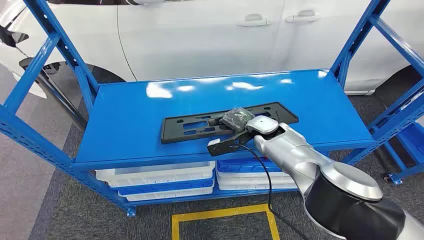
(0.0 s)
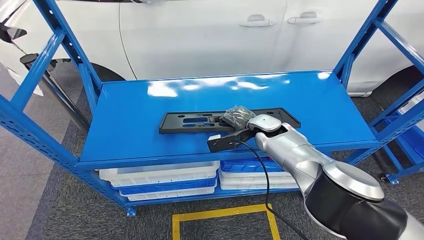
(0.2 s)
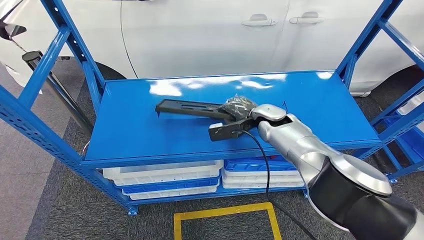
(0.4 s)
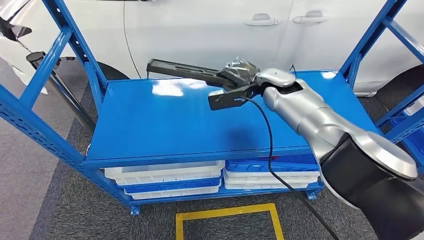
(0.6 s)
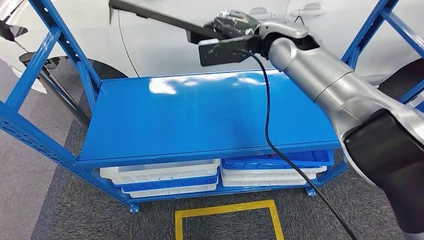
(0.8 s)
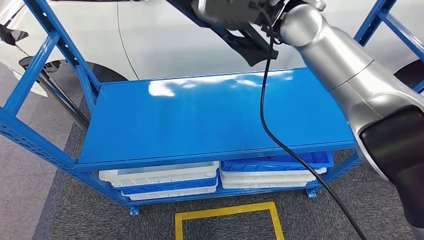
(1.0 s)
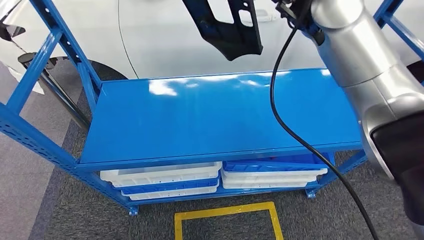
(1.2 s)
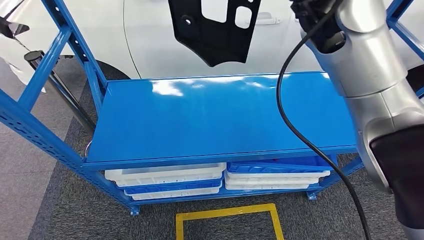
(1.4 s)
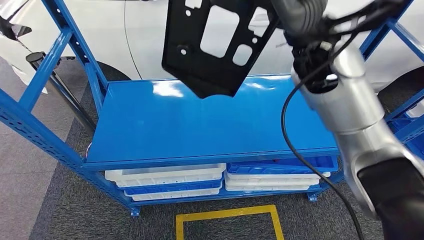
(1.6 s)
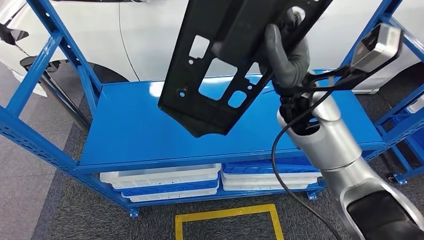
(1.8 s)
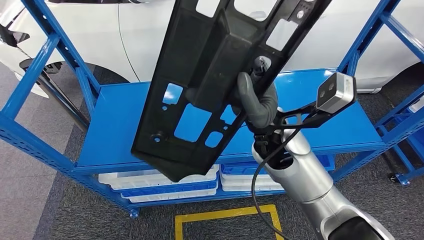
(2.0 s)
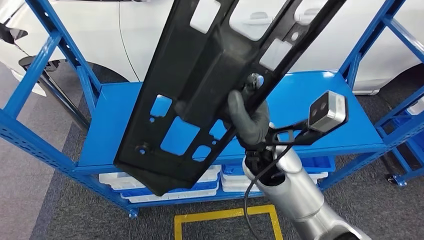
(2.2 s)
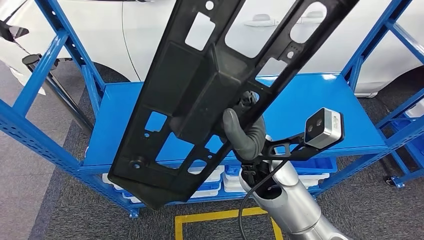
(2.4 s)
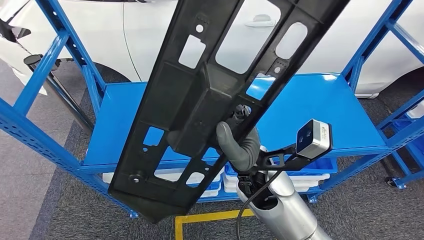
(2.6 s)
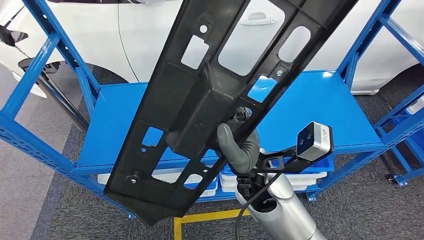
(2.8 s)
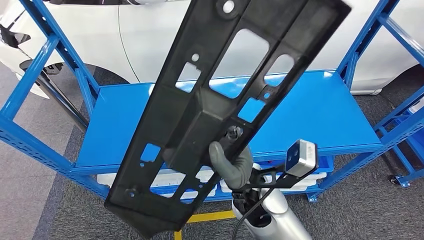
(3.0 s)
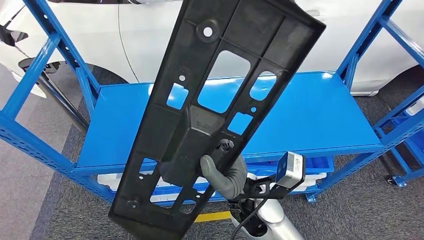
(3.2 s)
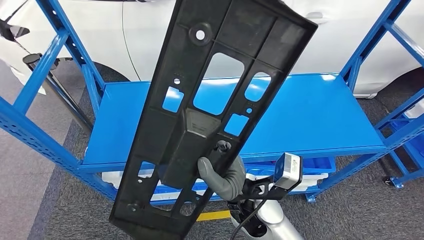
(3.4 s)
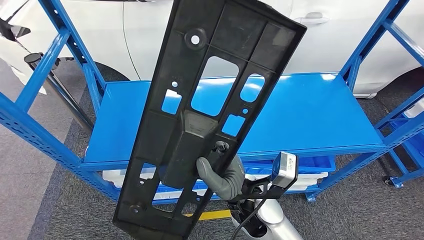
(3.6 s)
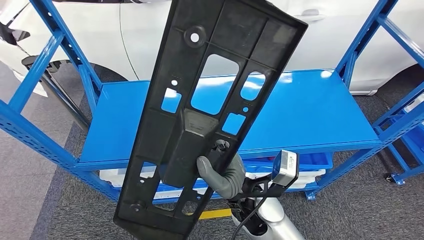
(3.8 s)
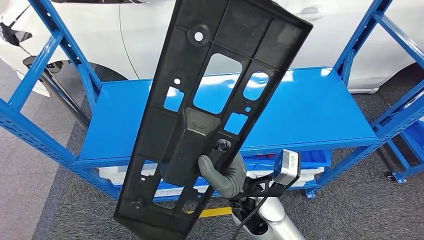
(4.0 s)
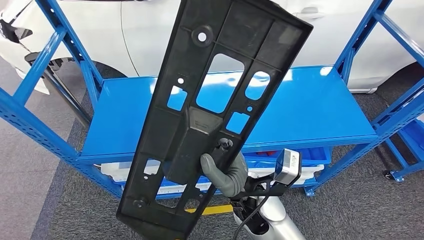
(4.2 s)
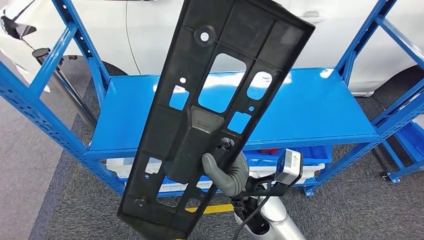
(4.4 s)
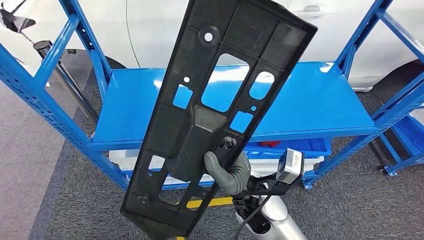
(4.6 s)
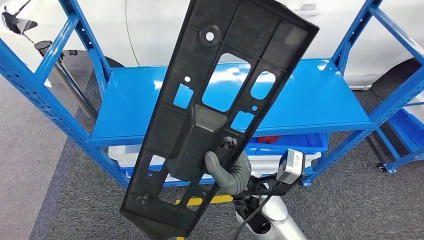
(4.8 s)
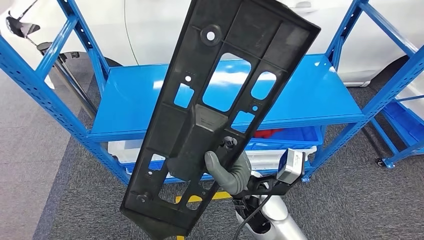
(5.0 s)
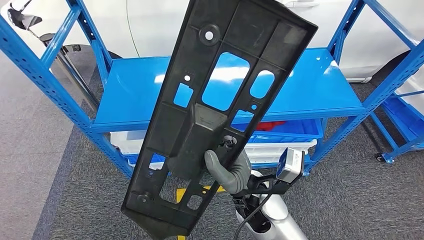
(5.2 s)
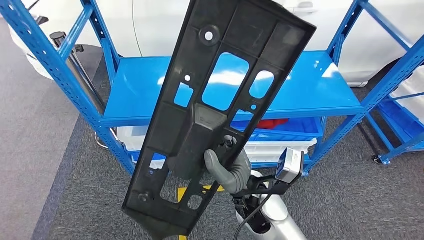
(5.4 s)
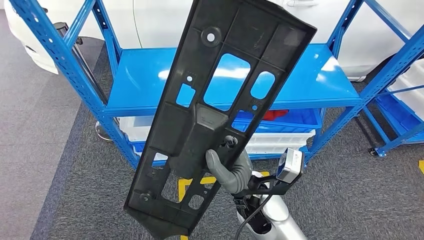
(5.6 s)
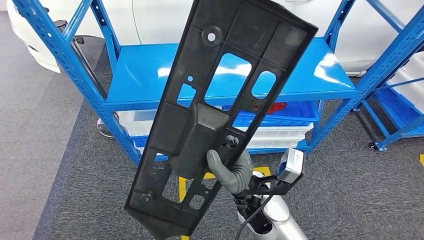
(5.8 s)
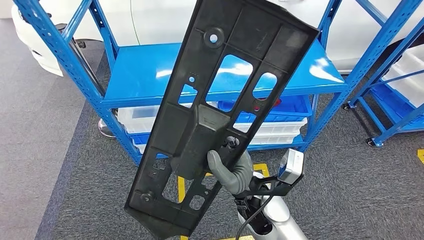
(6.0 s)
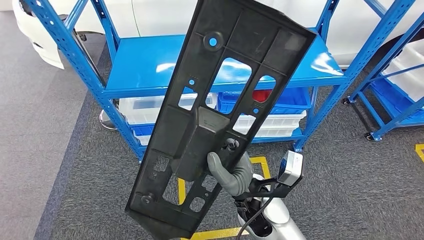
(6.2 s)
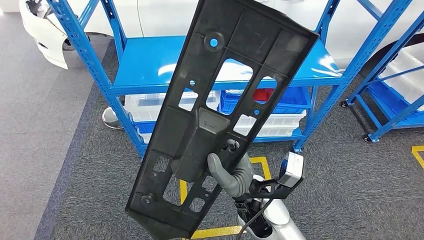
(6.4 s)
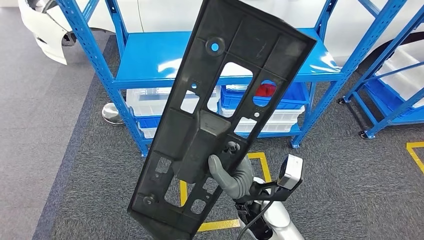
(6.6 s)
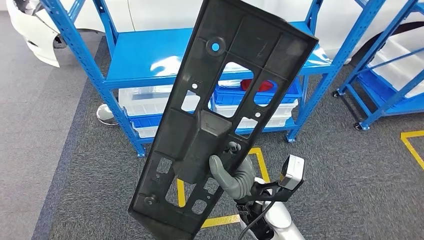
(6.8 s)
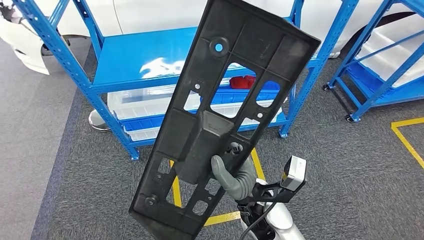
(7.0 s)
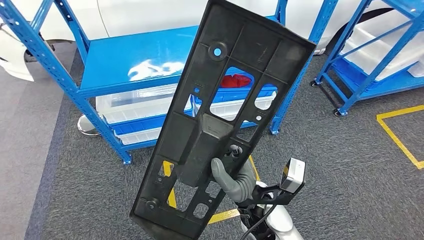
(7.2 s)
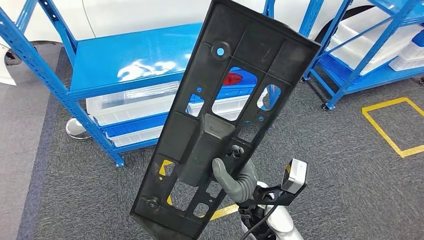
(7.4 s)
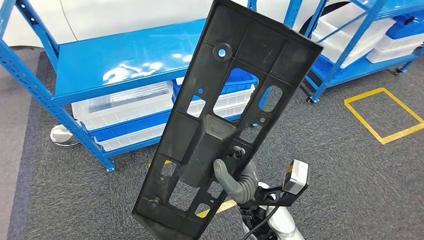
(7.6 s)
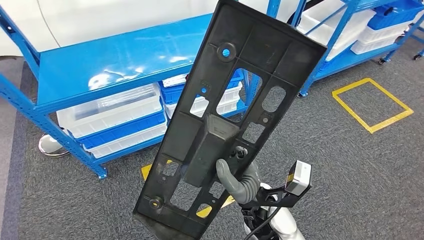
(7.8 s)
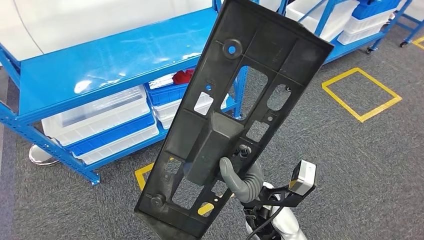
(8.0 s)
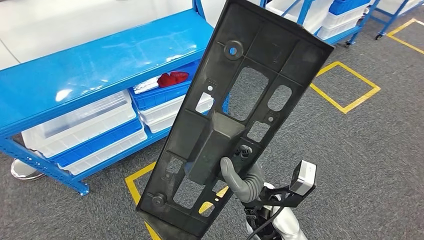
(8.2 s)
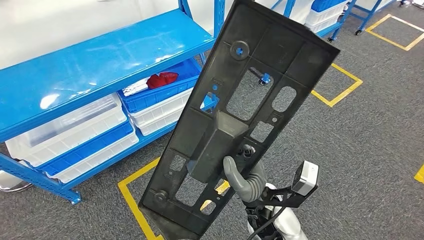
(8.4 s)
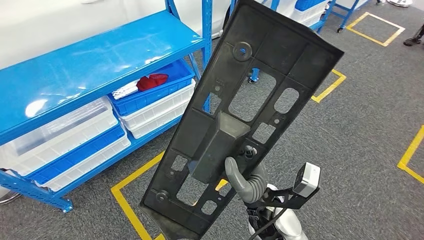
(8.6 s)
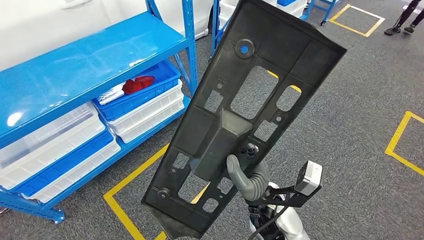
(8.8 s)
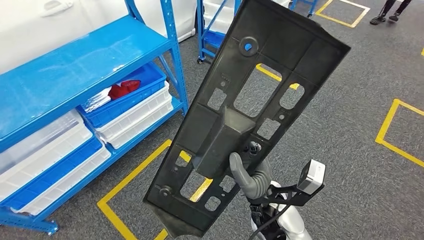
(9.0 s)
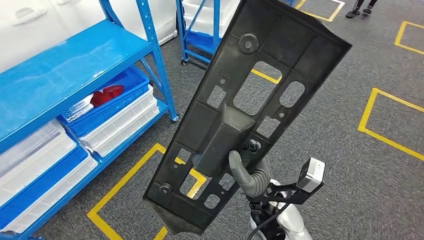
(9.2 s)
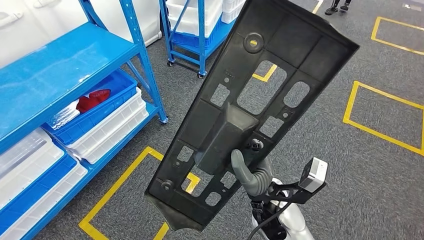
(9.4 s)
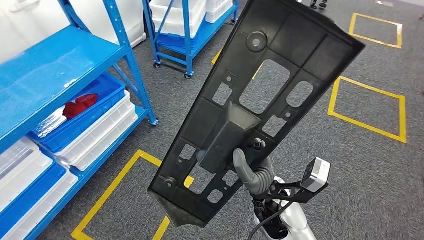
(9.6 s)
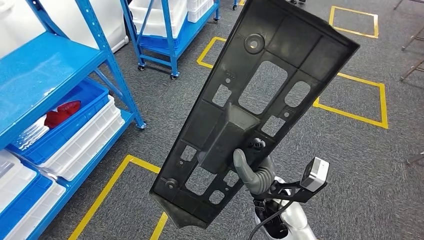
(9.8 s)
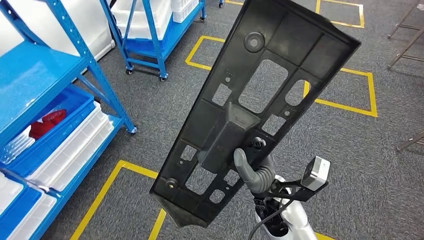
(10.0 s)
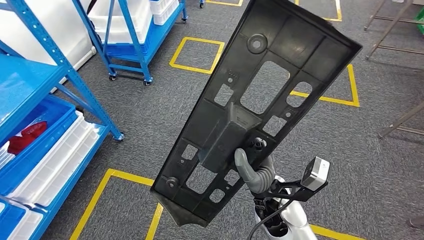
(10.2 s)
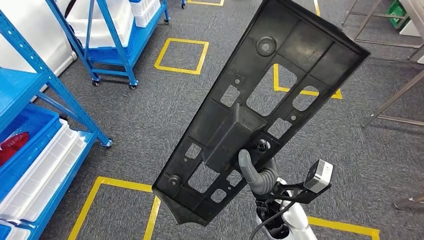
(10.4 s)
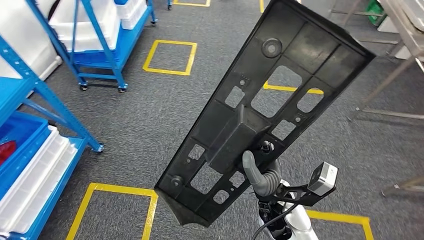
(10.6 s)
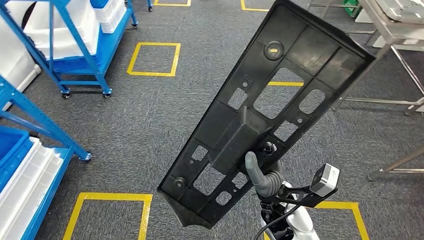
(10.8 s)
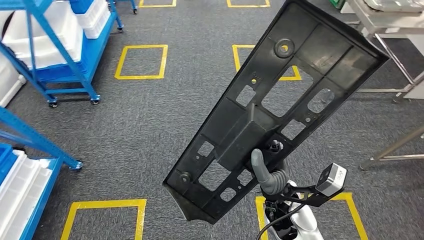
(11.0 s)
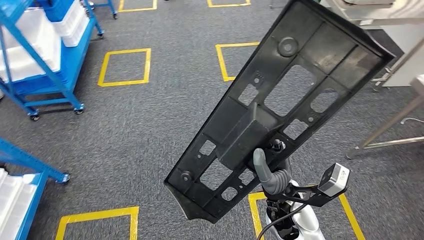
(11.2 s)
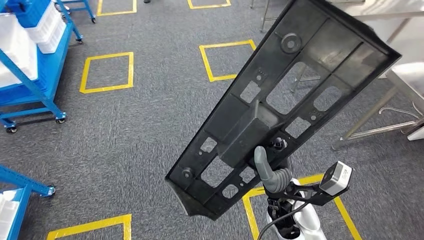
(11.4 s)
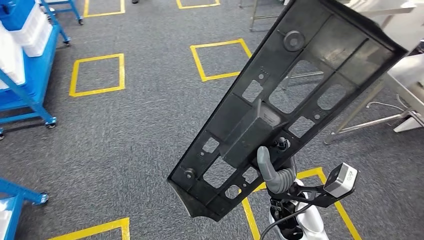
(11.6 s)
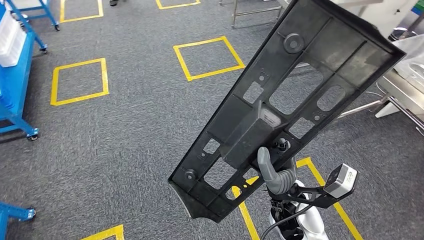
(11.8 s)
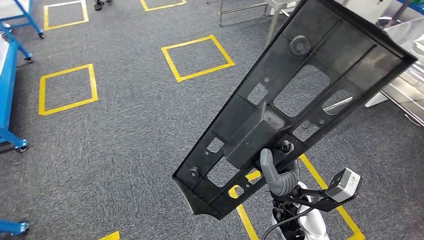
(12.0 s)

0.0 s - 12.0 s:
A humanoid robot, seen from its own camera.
Step, 0.0 s - 0.8 s: Pick up the large material from the shelf.

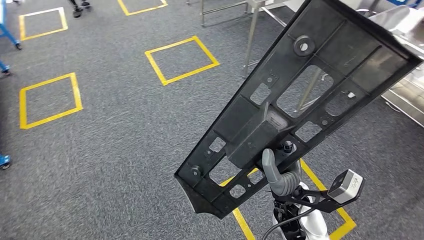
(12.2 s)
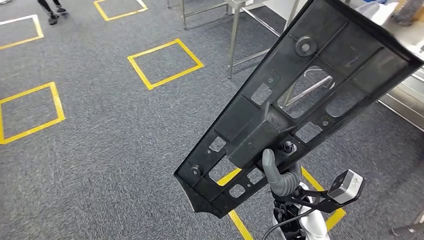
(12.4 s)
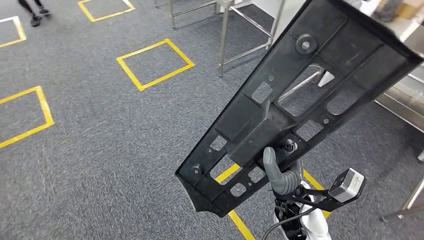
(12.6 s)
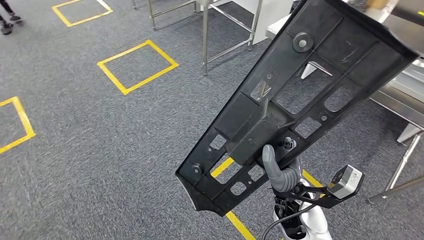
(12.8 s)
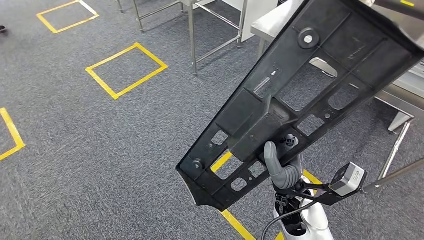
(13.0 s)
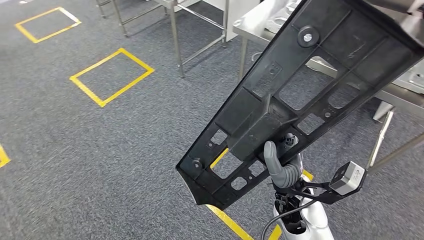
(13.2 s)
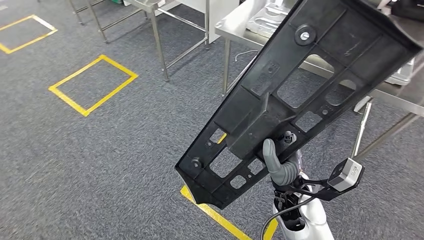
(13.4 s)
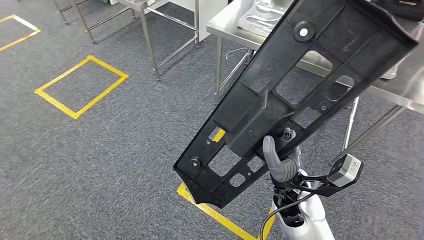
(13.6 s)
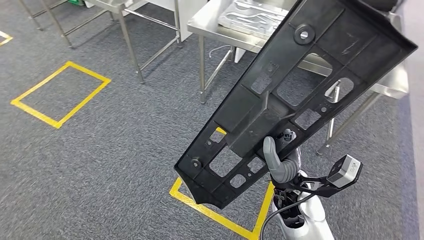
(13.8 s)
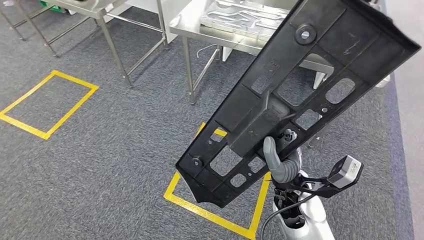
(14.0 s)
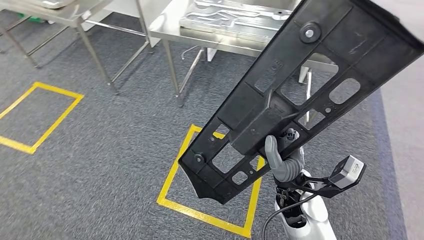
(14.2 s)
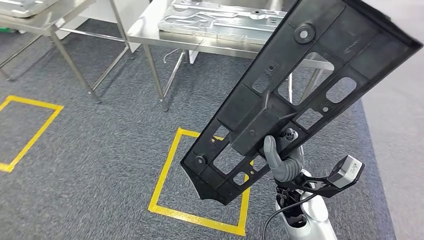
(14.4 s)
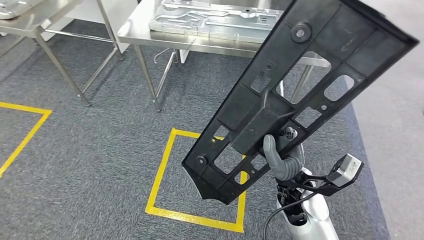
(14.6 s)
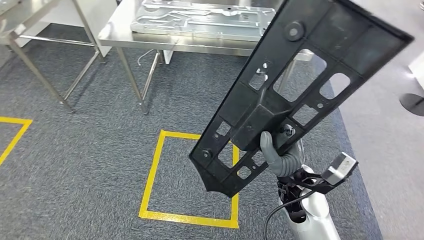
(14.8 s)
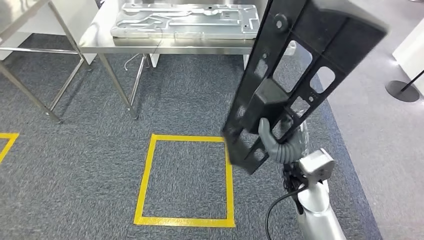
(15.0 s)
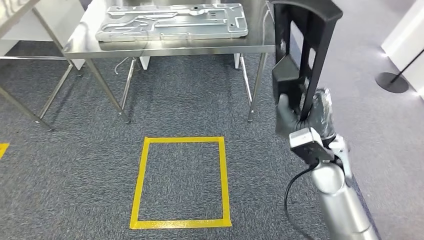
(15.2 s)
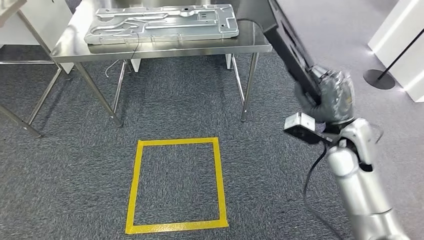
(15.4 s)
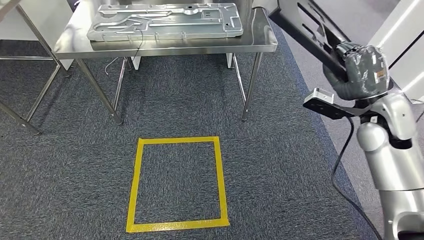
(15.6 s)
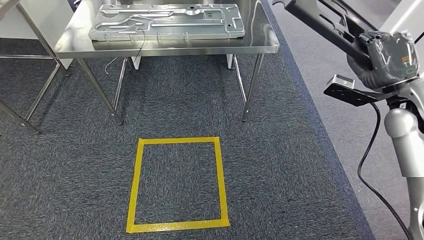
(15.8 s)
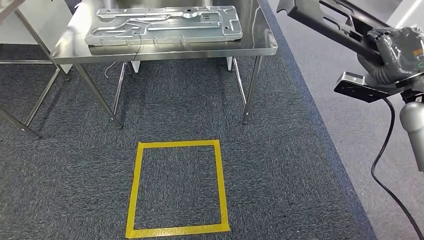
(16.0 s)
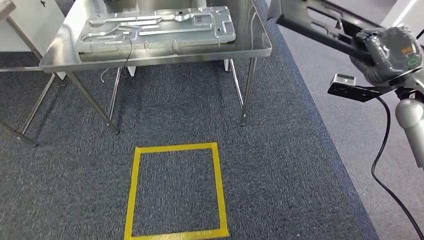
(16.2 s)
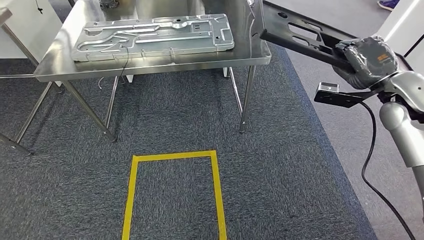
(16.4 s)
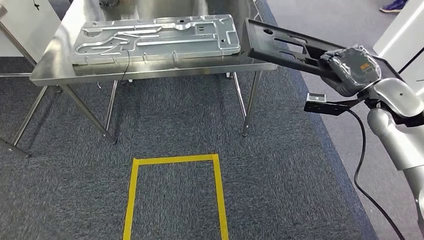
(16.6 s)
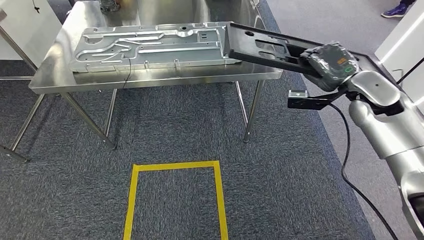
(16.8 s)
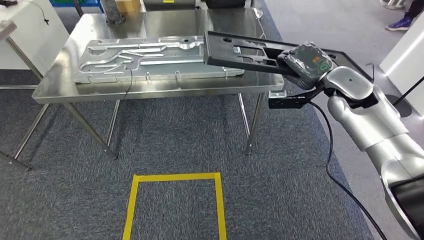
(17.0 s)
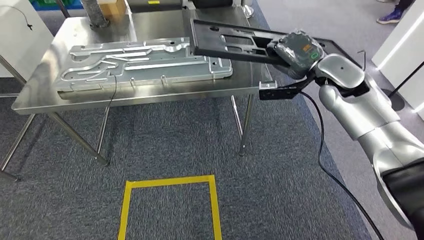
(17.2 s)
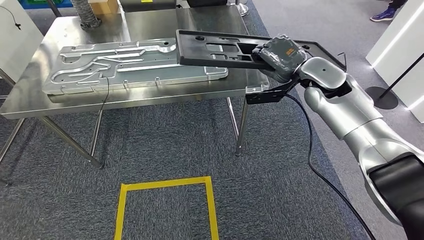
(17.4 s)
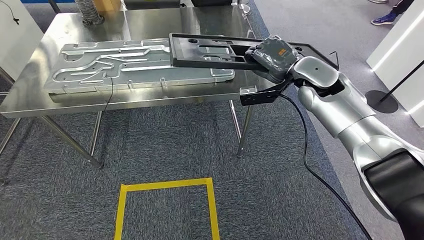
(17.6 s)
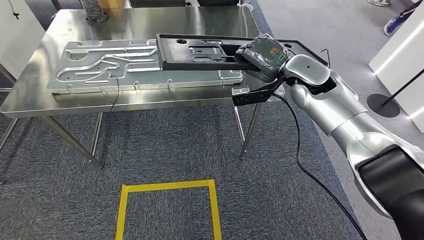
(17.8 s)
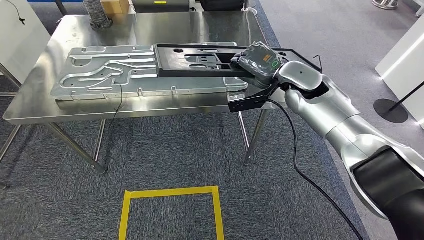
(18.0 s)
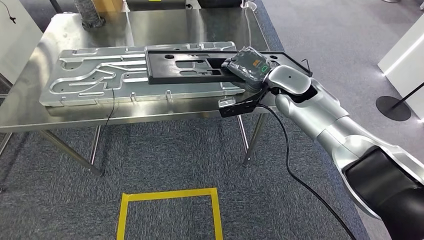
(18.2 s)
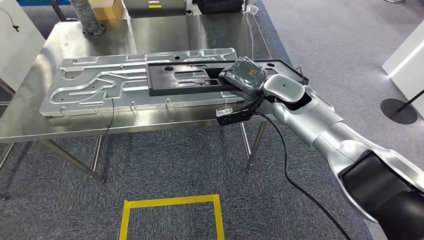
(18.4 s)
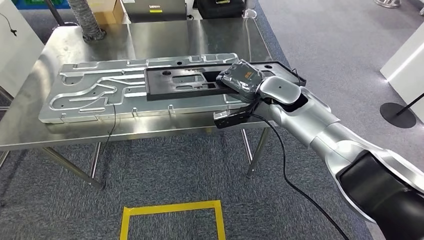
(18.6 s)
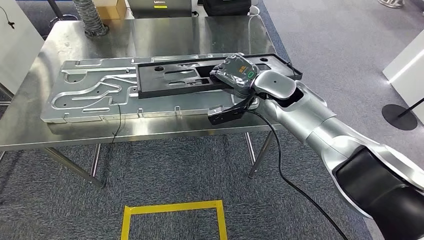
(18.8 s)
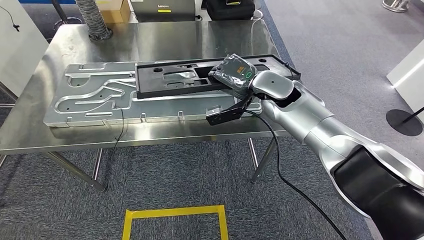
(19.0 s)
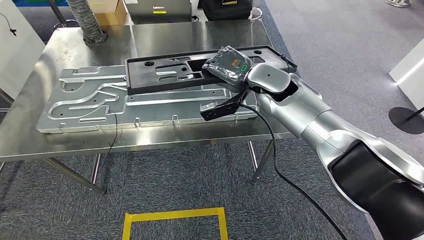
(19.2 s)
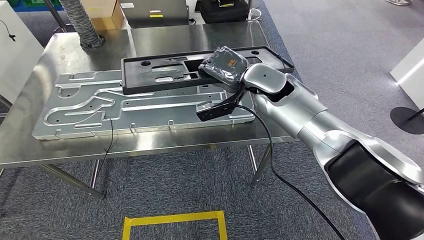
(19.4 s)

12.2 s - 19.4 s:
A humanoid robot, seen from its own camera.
Step, 12.2 s - 19.4 s: Move the large material to the workbench.
